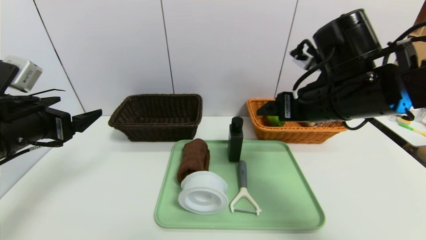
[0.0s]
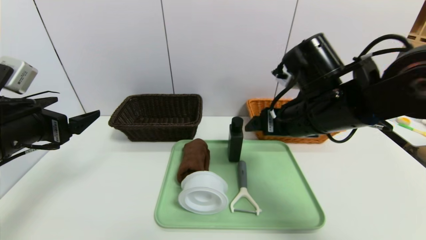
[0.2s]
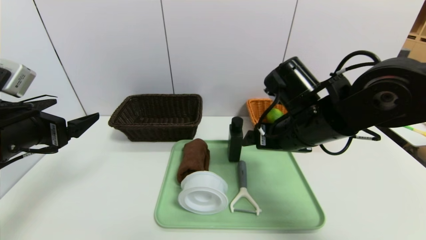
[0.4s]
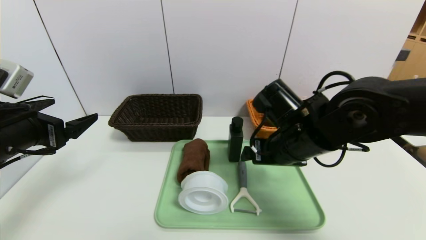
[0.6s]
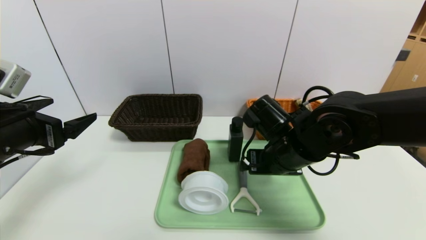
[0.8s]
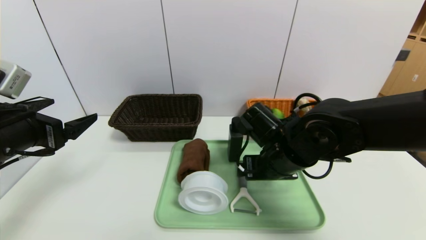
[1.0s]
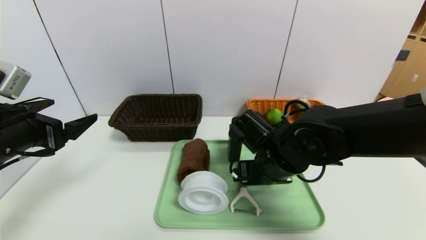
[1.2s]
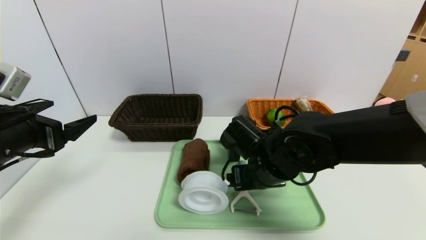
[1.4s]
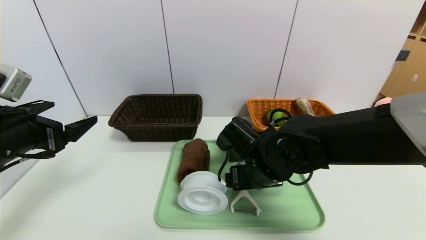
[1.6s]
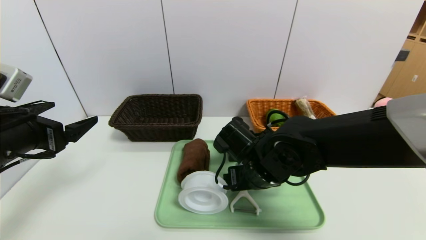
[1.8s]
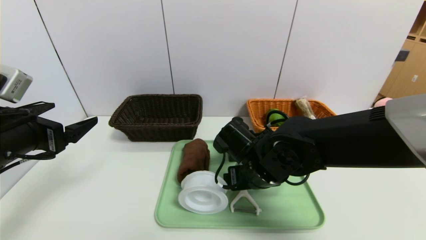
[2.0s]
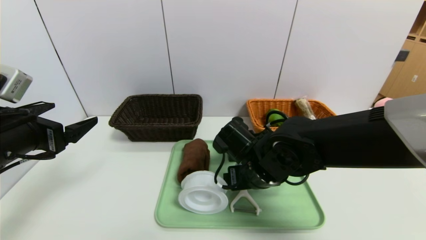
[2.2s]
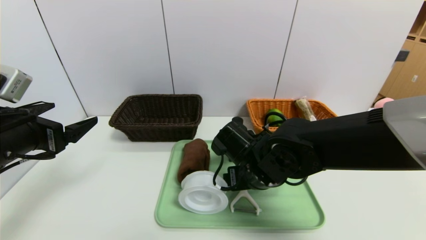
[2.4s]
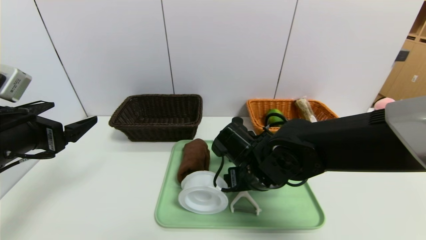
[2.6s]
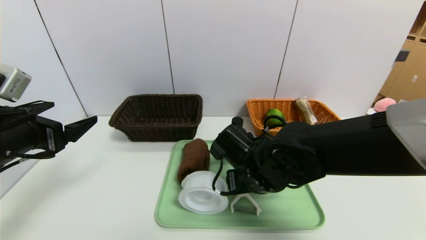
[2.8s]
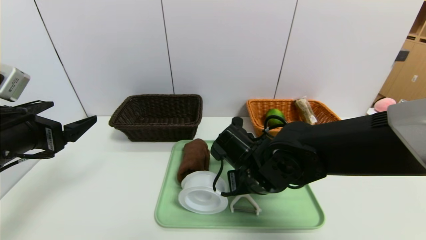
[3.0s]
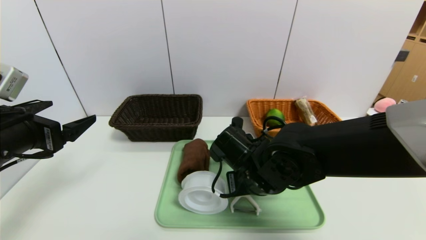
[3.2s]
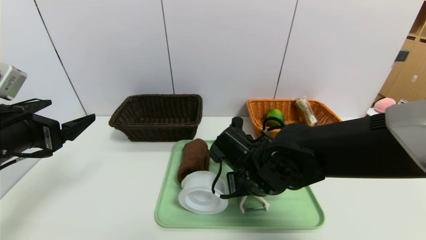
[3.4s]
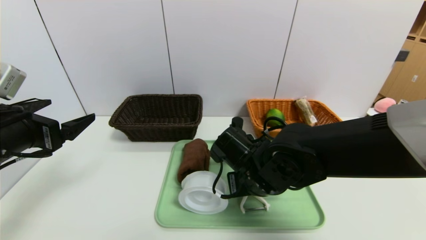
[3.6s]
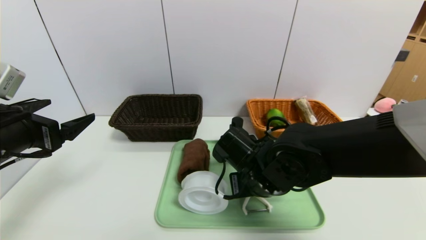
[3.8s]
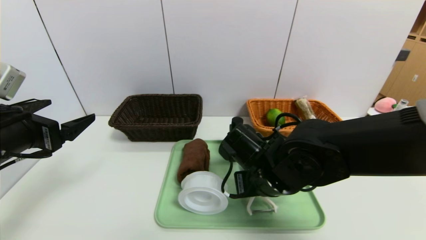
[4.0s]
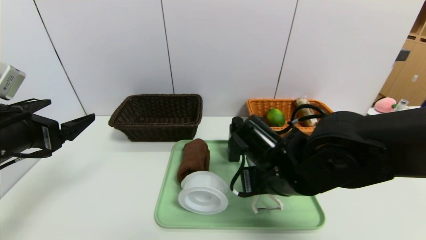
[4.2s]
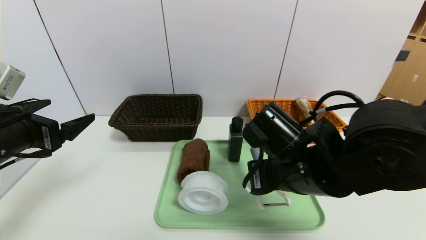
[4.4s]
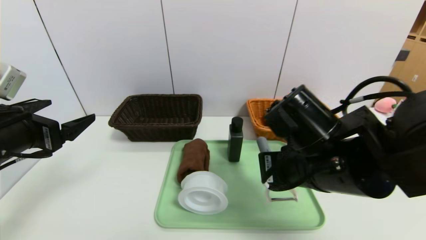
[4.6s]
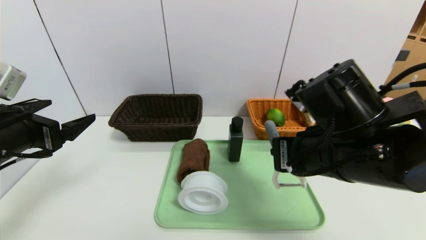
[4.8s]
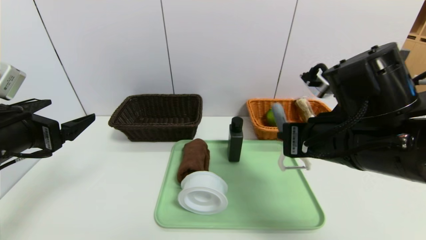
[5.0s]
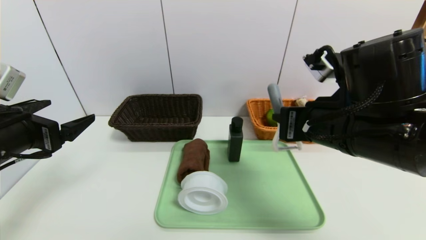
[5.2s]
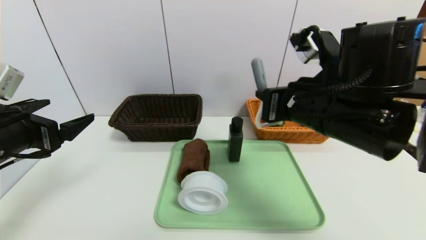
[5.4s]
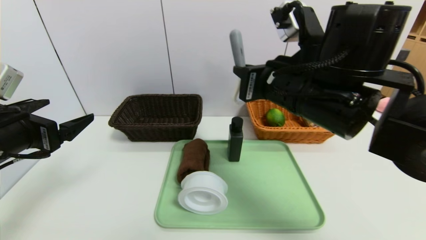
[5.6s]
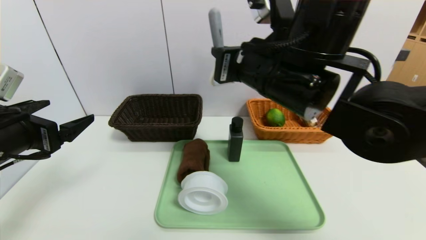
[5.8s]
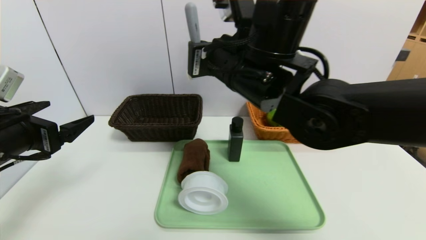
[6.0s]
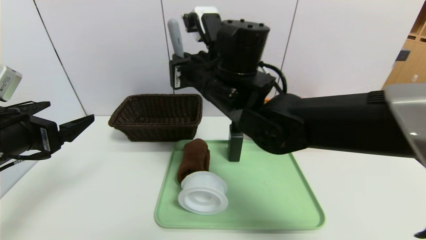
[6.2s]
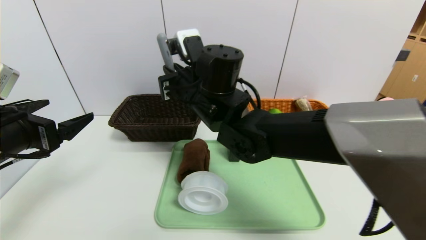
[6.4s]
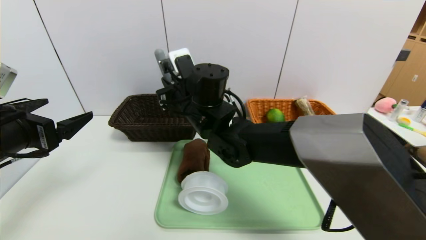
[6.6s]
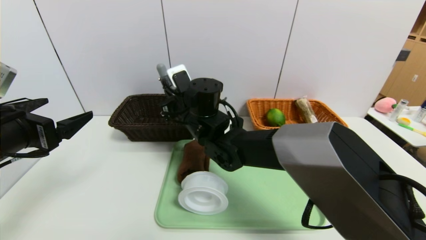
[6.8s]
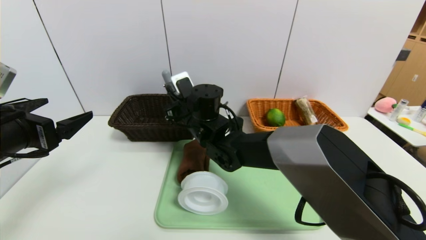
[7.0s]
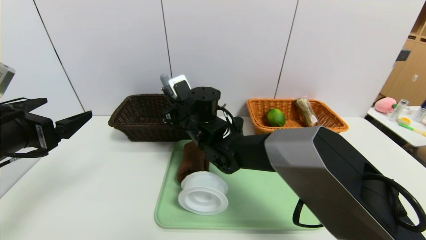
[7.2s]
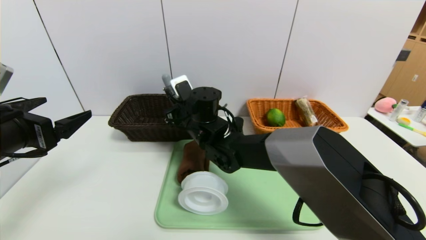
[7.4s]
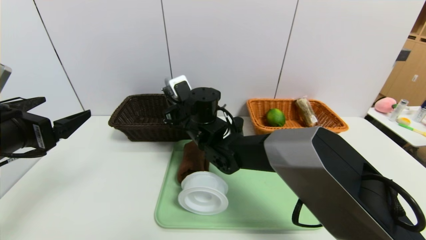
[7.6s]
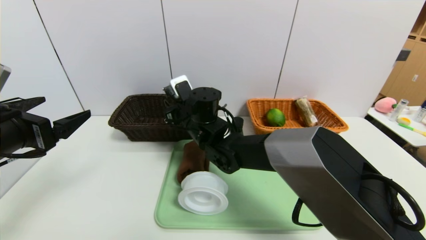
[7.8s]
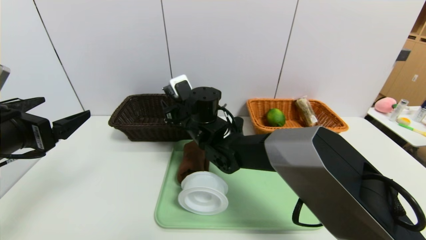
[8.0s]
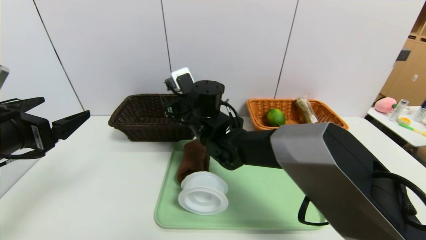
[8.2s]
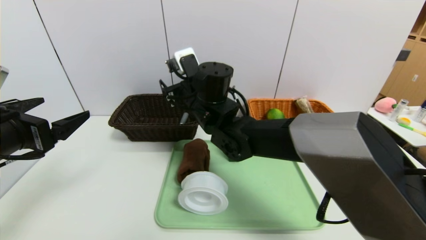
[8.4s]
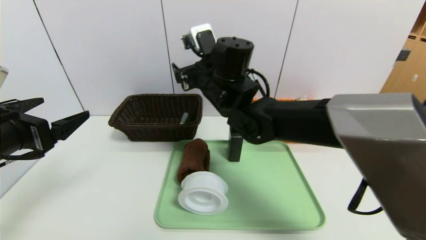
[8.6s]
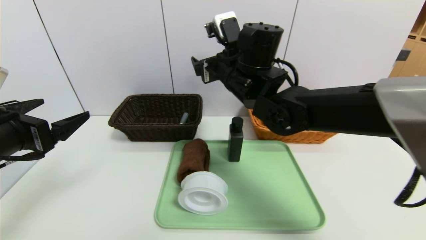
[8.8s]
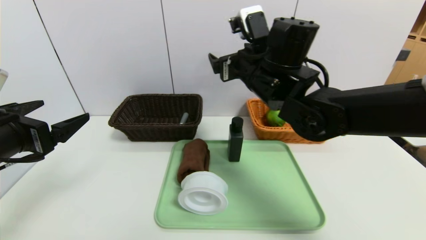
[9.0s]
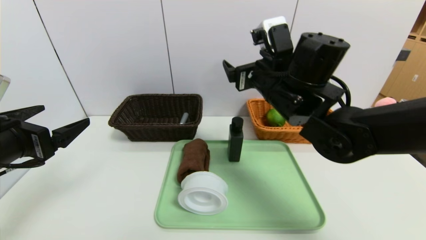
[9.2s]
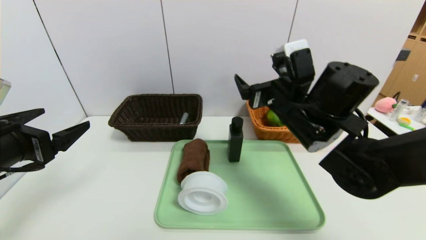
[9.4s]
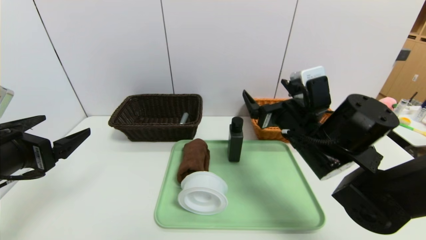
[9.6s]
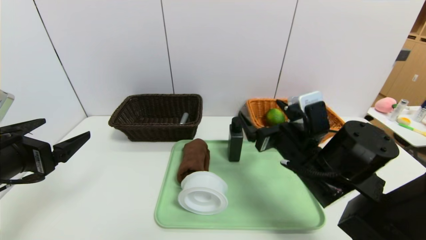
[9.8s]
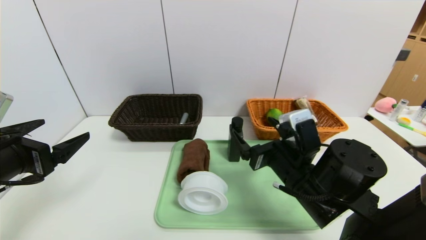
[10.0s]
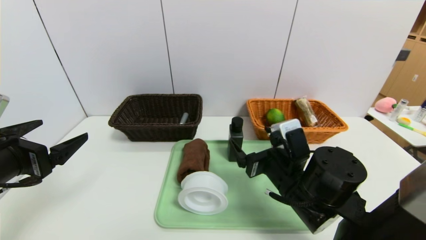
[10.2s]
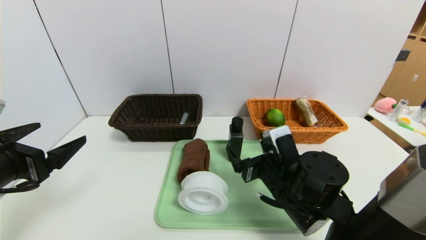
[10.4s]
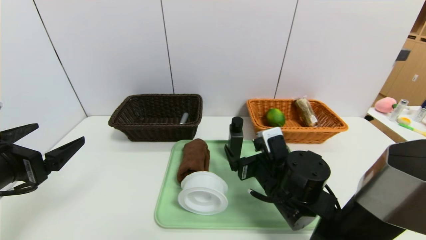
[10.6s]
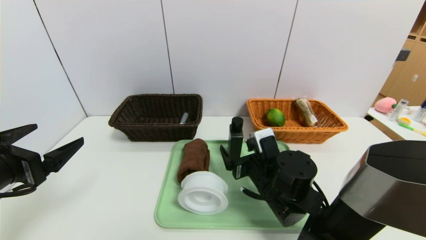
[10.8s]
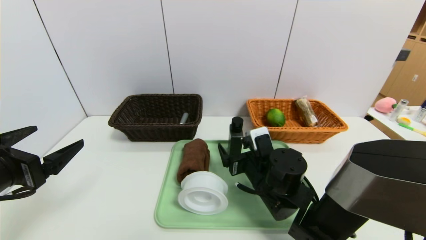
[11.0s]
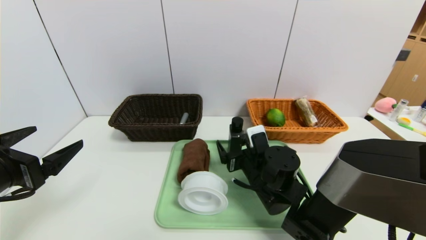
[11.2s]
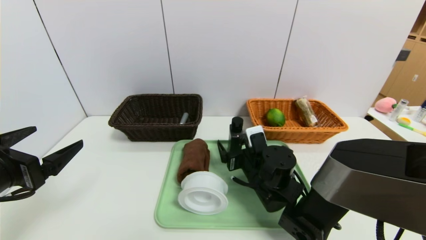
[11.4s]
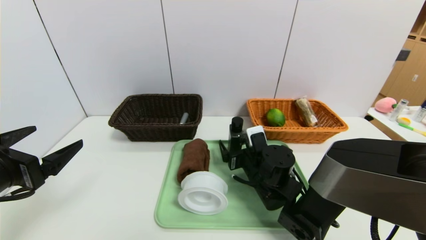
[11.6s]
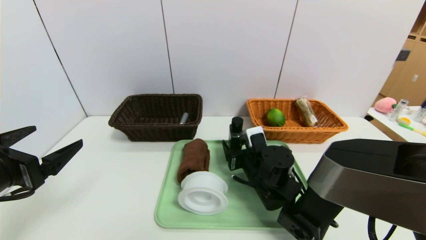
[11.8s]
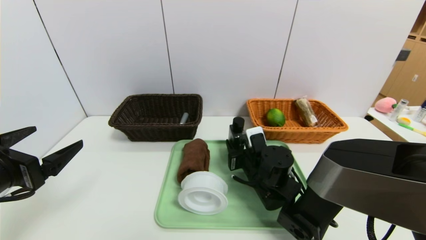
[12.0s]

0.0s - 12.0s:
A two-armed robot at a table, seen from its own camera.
Task of the whole recording: place the food in the right basket with the right gripper, and place the non food items in the left basket with the left gripper.
0.0s - 1.6s: The right gripper goes roughly 15 cm downward and to the left.
1.6s - 3.0s: The right gripper closes up.
3.0s - 4.4s: The right gripper is displaced upward by roughly 10 cm, and closes up.
4.4s - 6.0s: The right gripper moves upward, to the left and forward, approximately 15 cm.
6.0s - 7.6s: The right gripper goes approximately 20 cm downward, to the left and forward.
7.6s - 9.0s: The right gripper travels to the right and upward by some 20 cm, and opens.
9.0s - 10.4s: The right gripper moves downward and backward, about 20 cm.
10.4s - 12.0s: The right gripper shifts approximately 5 cm forward, and closes its fingers.

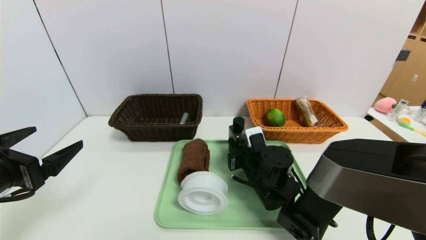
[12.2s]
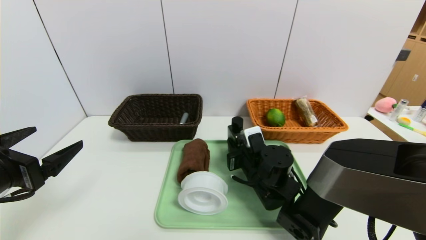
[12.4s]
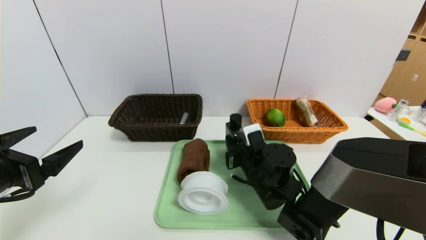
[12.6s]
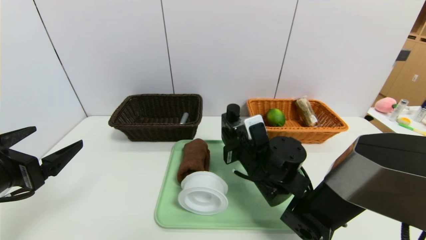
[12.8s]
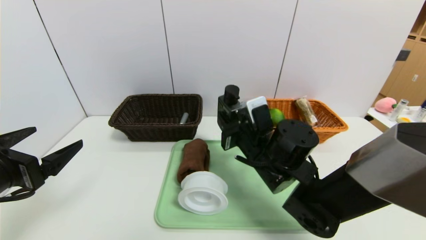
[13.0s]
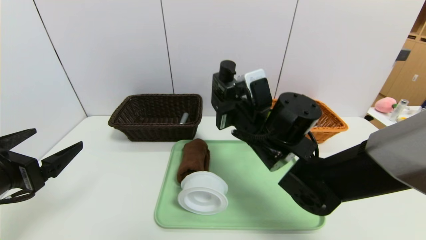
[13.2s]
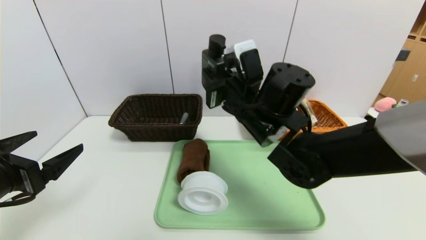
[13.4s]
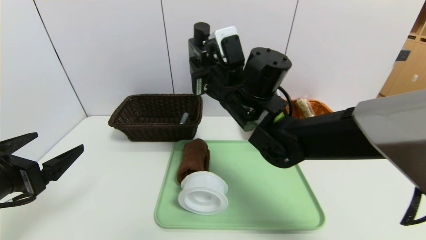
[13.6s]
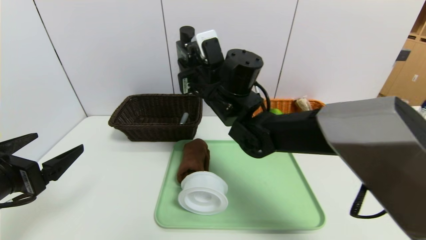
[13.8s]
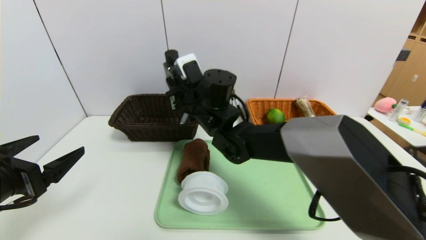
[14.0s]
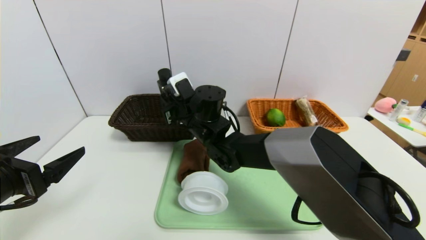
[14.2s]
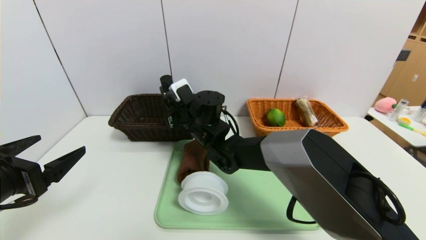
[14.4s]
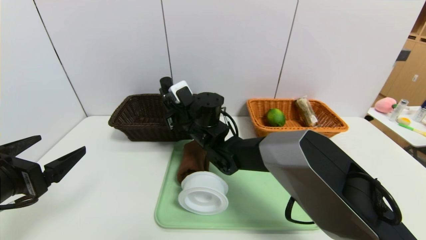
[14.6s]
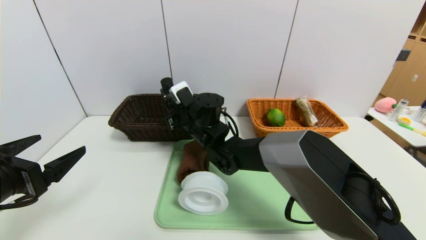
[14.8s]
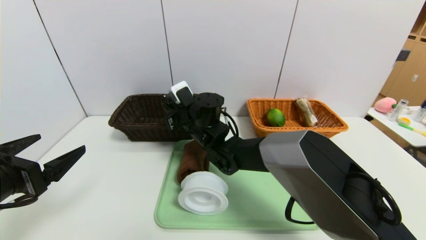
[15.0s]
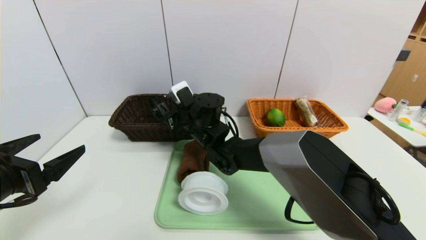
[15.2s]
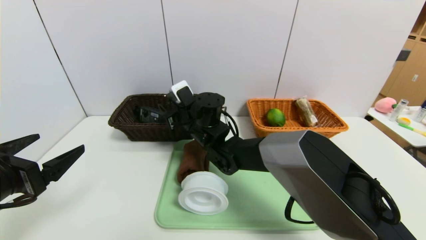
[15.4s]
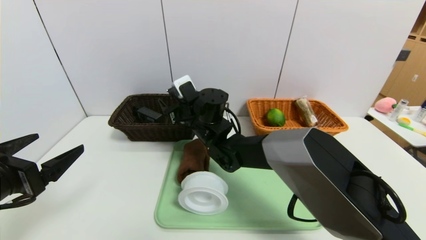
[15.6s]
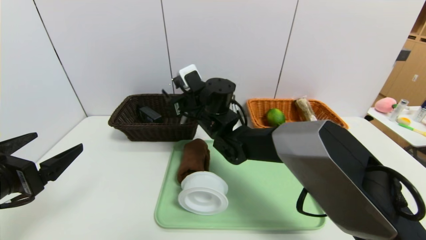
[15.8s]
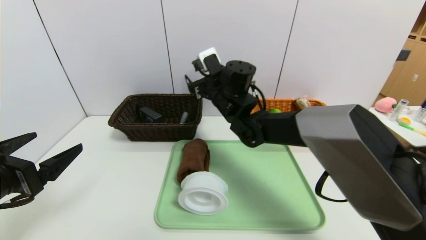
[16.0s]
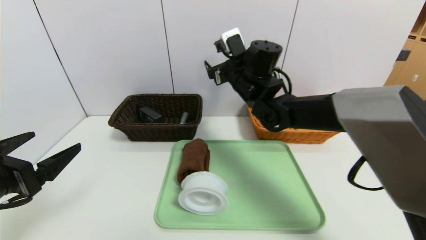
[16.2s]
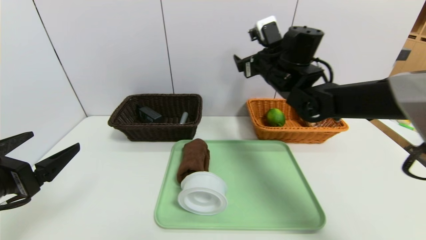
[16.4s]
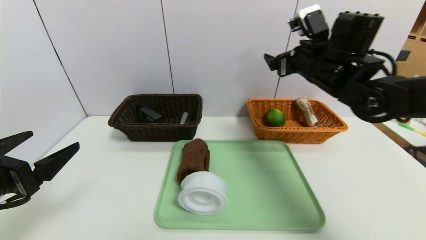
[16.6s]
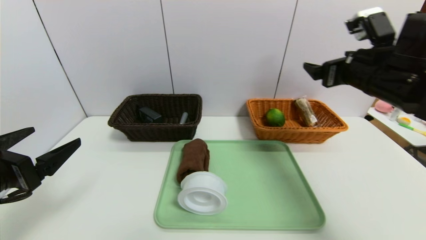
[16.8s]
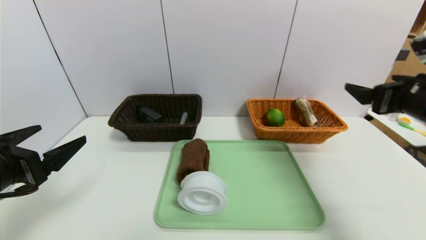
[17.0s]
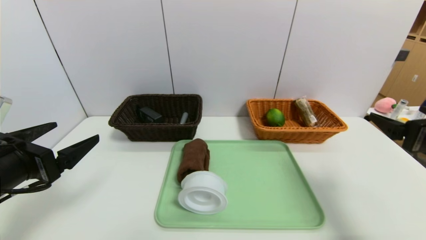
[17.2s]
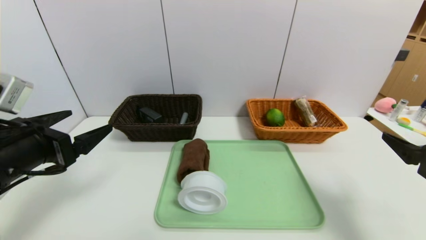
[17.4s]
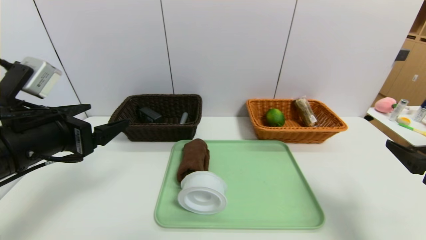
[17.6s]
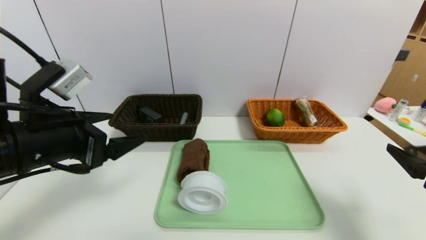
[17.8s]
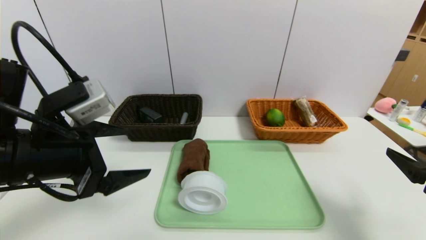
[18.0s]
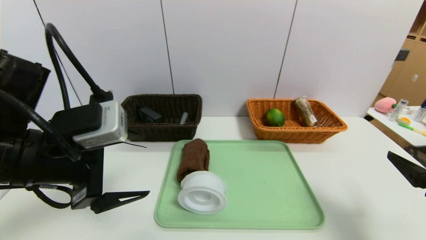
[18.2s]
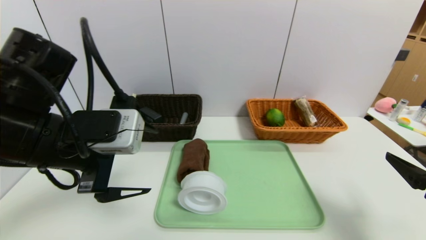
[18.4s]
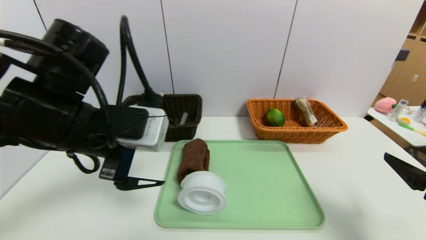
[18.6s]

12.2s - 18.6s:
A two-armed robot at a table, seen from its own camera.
Task of the whole recording: place the food in the right basket with the right gripper, and place the non food items in the left basket with the left gripper.
12.2s - 13.8s: The right gripper goes about 20 cm upward and to the left.
13.8s - 15.4s: The right gripper travels downward by roughly 10 cm, and opens.
15.4s - 17.0s: The right gripper heads to the right and backward, covering about 40 cm.
17.0s - 18.6s: The right gripper moves backward and downward, some 15 cm; the left gripper shifts roughly 15 cm to the right, forward and upward.
